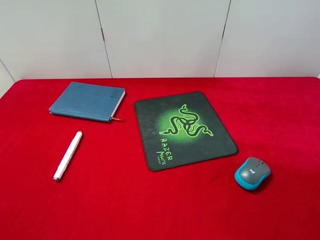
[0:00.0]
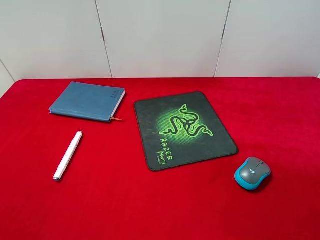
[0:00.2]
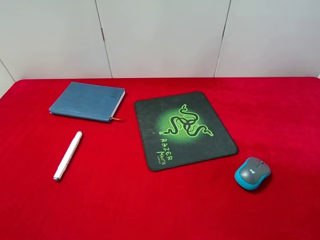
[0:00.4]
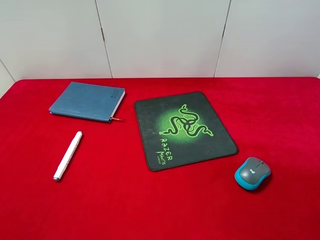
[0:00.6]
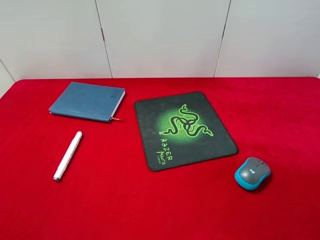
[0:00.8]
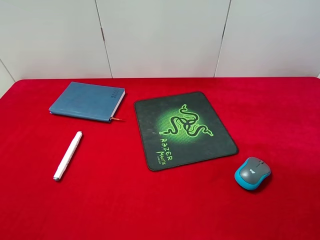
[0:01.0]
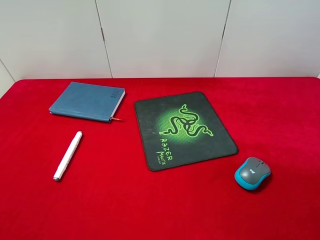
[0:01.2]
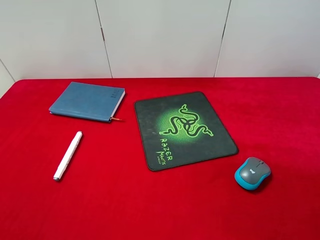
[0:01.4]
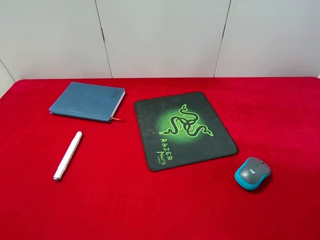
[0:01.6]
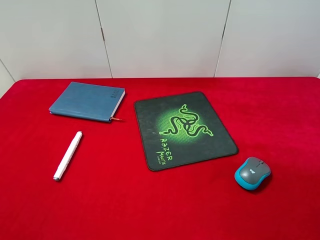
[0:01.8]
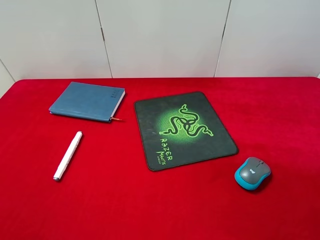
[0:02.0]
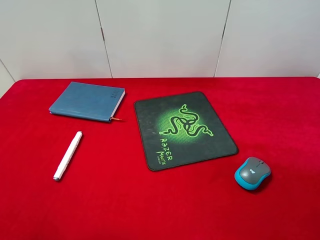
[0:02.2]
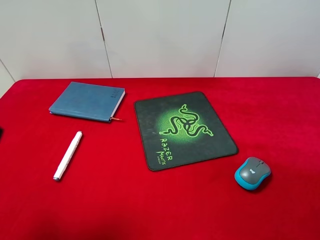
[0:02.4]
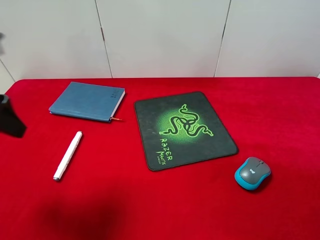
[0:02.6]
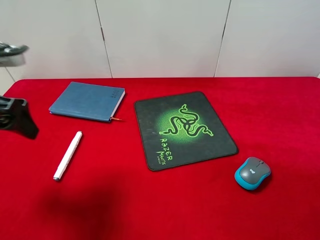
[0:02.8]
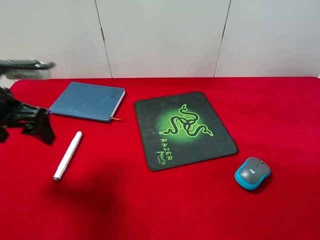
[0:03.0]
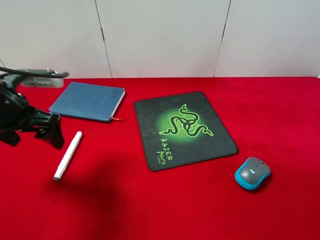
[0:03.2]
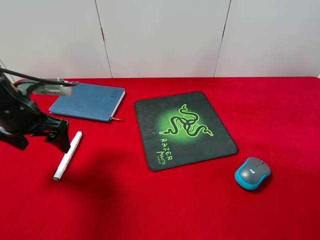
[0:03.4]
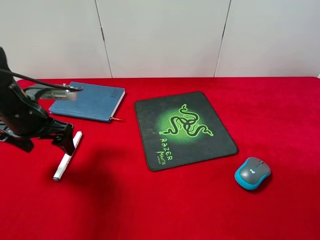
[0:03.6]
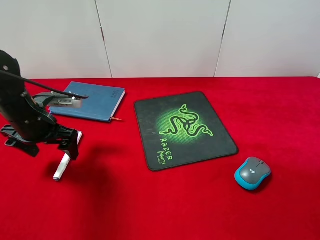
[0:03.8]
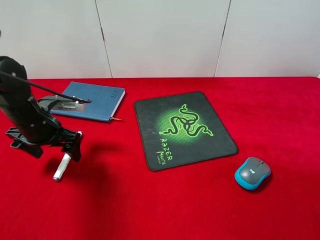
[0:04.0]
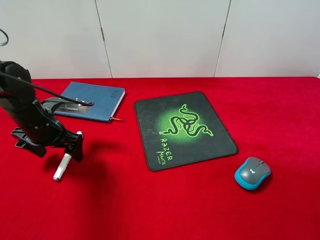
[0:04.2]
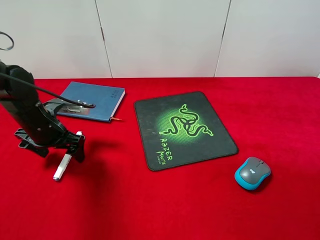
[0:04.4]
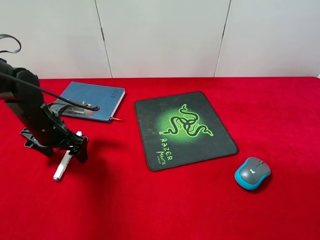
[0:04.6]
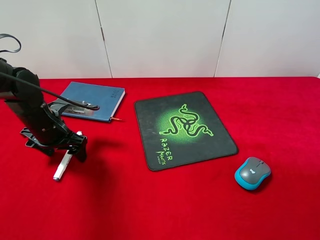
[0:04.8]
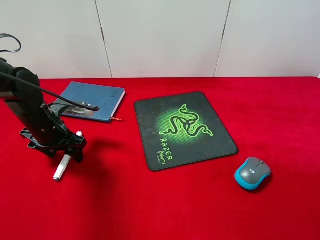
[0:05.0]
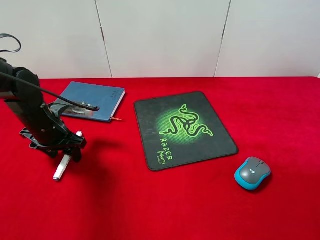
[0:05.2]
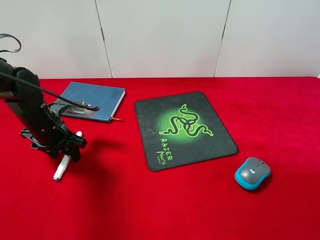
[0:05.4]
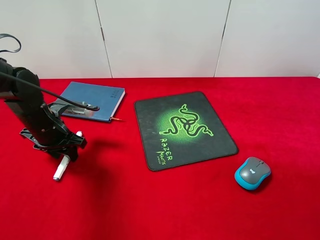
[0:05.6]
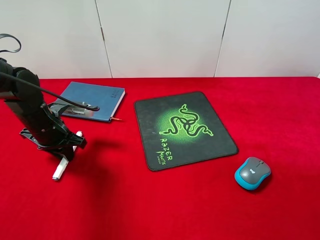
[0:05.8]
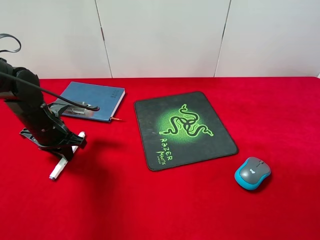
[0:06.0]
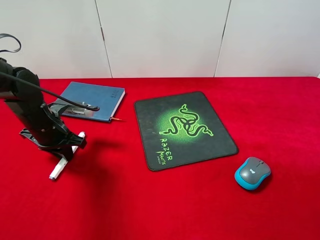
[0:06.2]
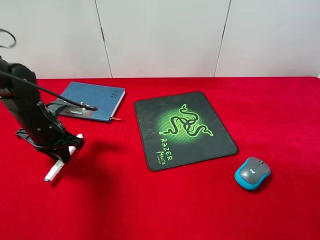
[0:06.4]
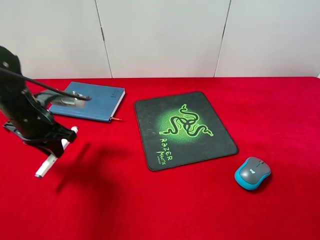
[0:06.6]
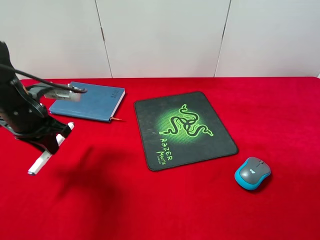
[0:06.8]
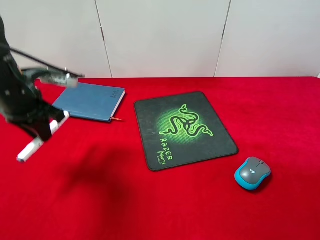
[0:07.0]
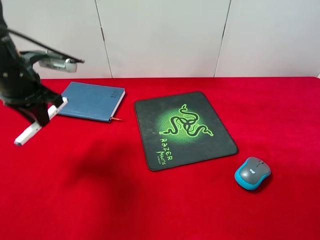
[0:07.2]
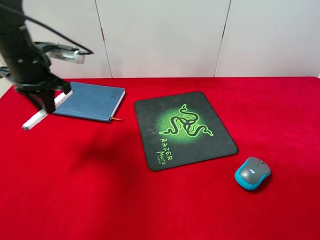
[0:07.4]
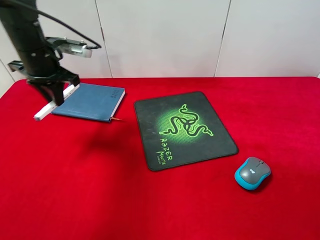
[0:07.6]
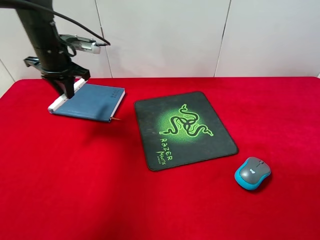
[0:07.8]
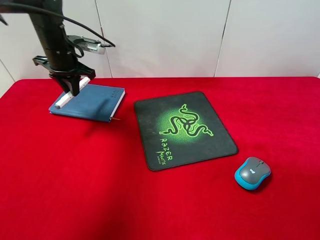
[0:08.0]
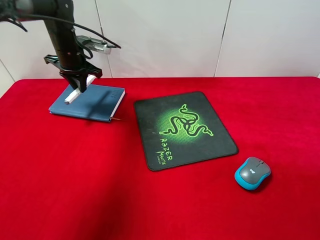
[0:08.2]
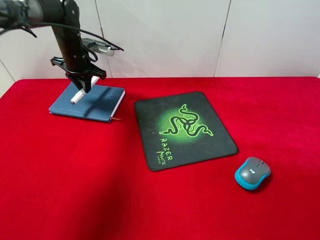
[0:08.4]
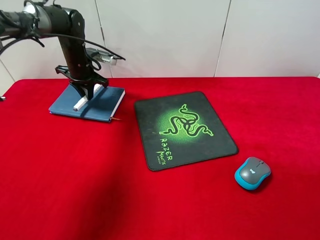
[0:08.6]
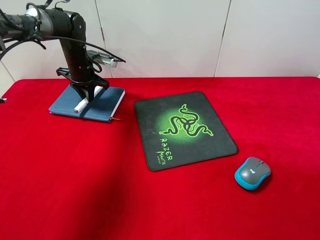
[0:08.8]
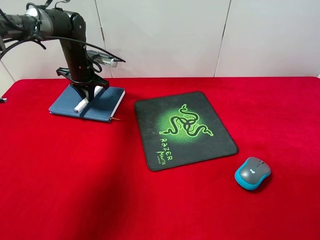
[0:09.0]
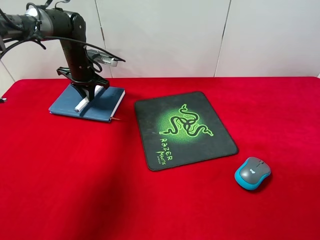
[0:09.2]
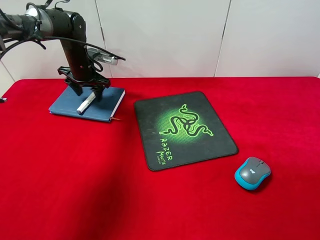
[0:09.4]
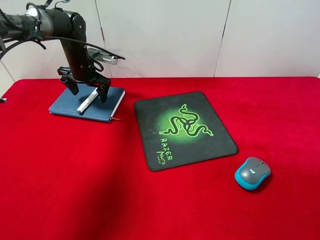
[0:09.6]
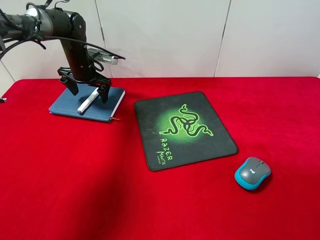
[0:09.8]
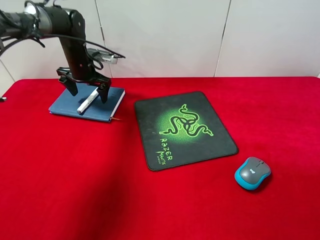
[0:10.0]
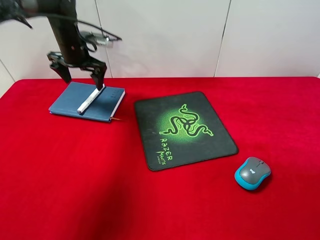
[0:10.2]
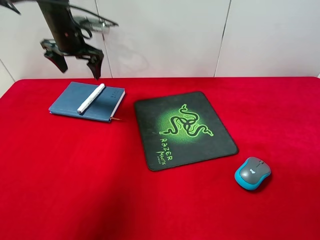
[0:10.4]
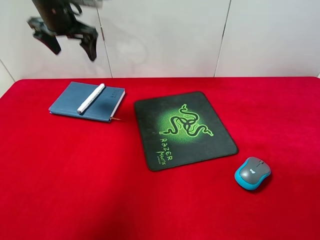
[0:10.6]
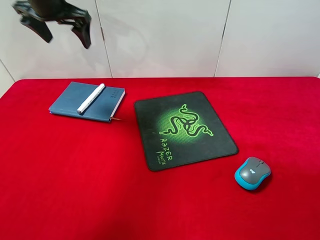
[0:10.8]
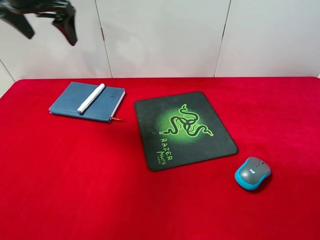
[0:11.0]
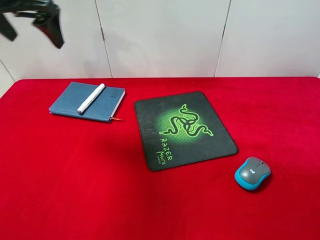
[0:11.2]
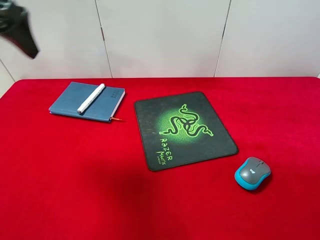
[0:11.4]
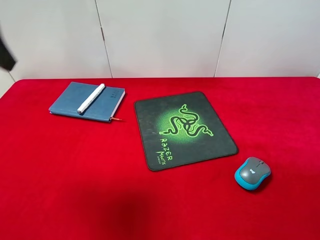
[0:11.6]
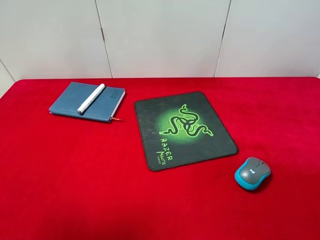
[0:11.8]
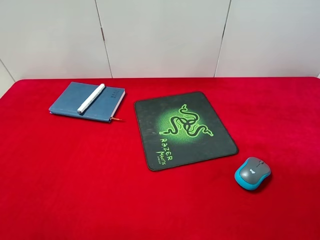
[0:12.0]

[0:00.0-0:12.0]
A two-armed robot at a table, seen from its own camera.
Step, 0:00.0 to 0:06.4: Pick up the marker pen with left gripper.
Step, 0:06.6 to 0:09.6: Place the marker pen on the notebook with left gripper.
0:00.0 to 0:01.6: The two grippers keep their place.
0:01.6 to 0:03.0: The left gripper is displaced forward by roughly 25 cm.
0:03.0 to 0:04.4: The left gripper travels downward and forward by approximately 15 cm.
0:04.4 to 0:06.0: The left gripper closes up.
0:06.0 to 0:07.6: The left gripper travels upward and forward by about 15 cm.
0:07.6 to 0:09.0: The left gripper goes about 15 cm forward and downward.
0:09.0 to 0:10.4: The left gripper goes some 10 cm upward, and opens.
0:10.4 to 0:12.0: The left gripper goes about 40 cm backward.

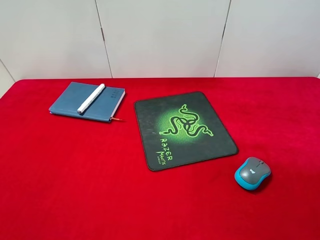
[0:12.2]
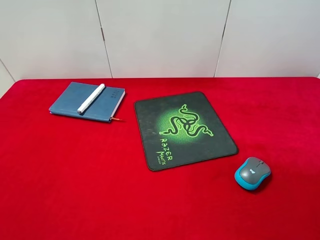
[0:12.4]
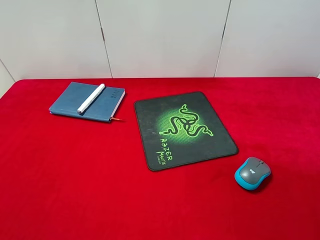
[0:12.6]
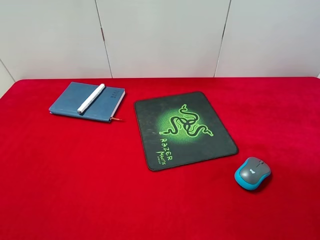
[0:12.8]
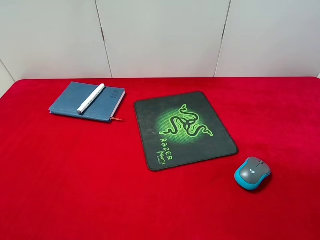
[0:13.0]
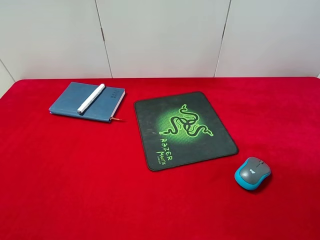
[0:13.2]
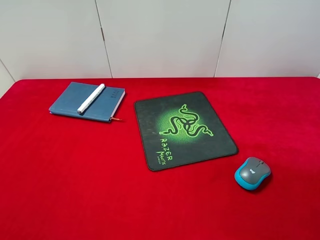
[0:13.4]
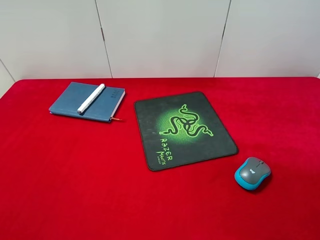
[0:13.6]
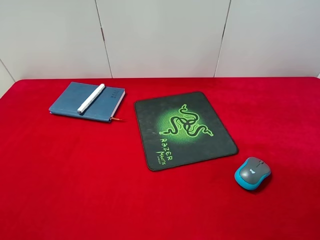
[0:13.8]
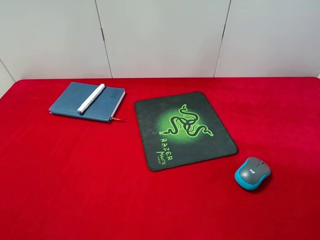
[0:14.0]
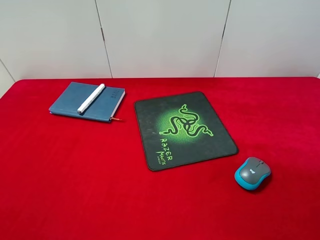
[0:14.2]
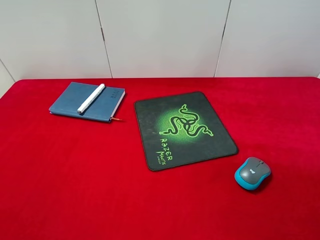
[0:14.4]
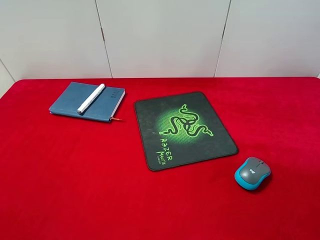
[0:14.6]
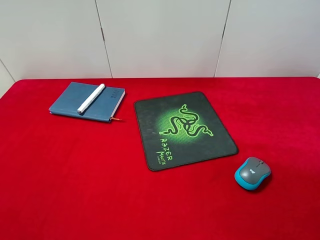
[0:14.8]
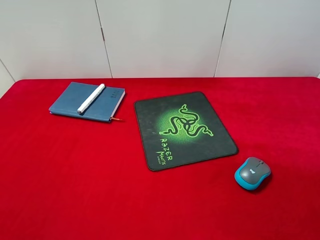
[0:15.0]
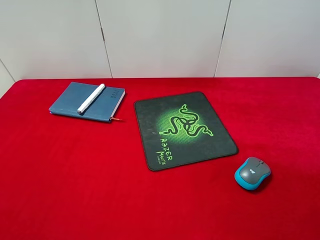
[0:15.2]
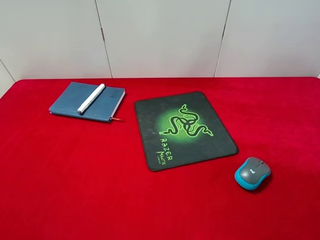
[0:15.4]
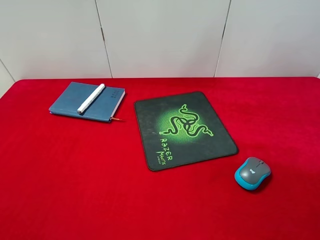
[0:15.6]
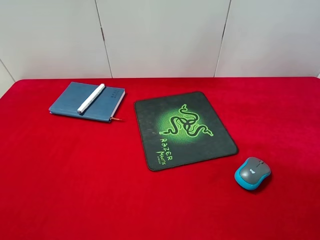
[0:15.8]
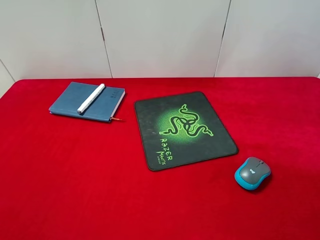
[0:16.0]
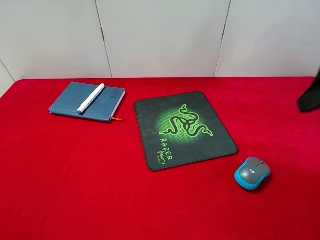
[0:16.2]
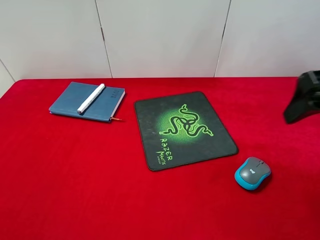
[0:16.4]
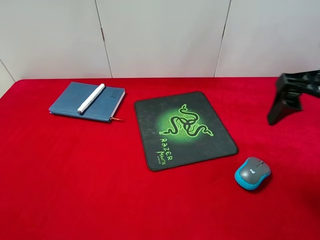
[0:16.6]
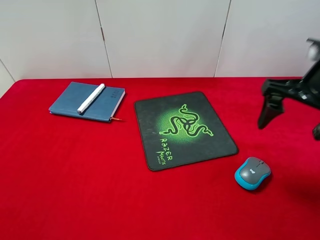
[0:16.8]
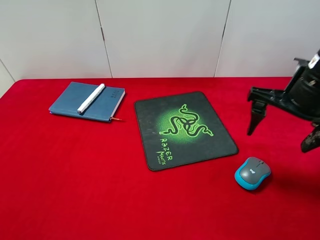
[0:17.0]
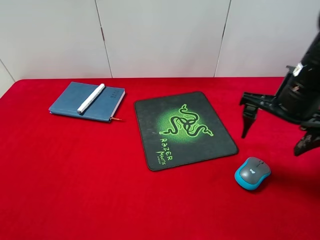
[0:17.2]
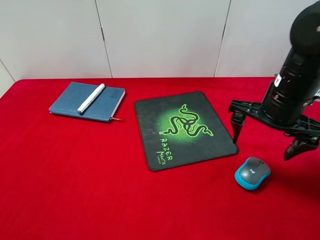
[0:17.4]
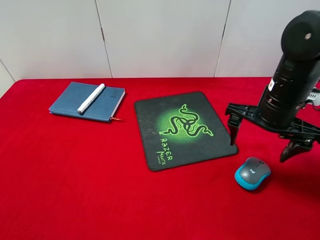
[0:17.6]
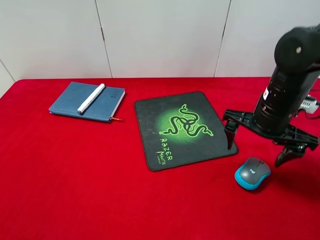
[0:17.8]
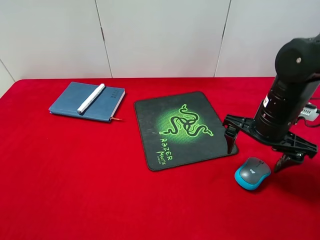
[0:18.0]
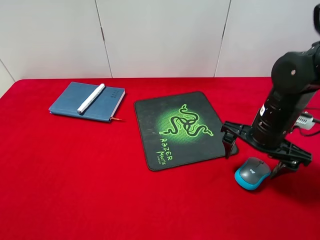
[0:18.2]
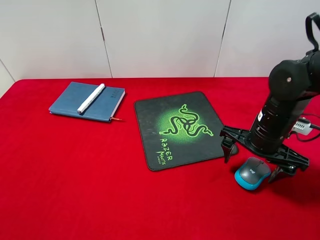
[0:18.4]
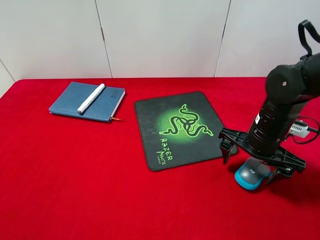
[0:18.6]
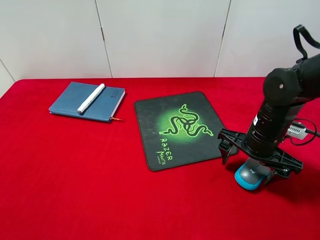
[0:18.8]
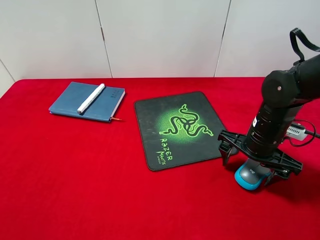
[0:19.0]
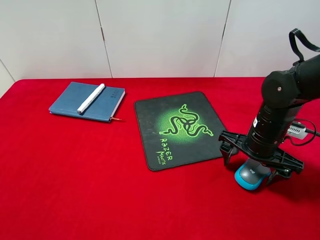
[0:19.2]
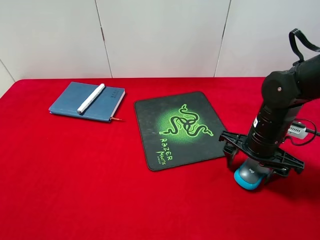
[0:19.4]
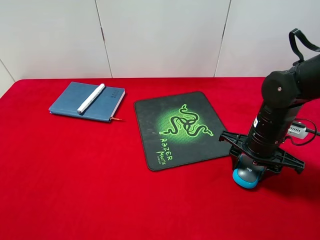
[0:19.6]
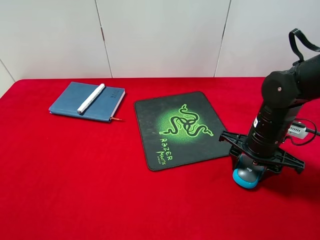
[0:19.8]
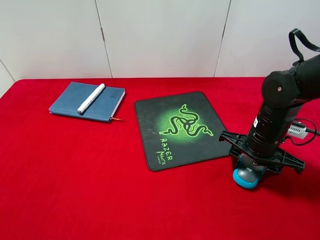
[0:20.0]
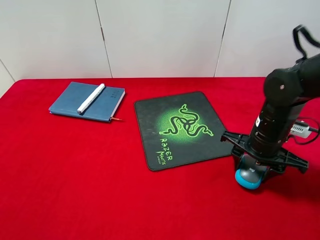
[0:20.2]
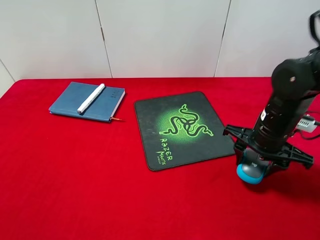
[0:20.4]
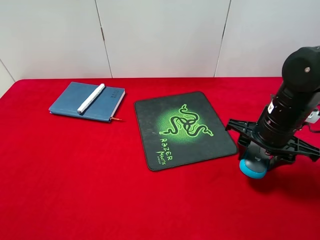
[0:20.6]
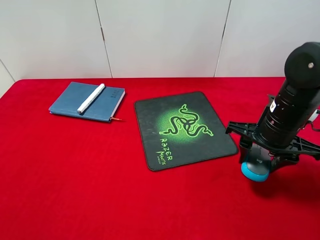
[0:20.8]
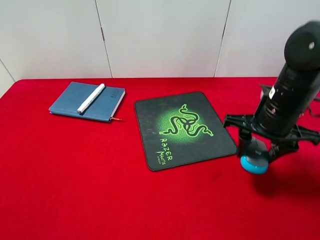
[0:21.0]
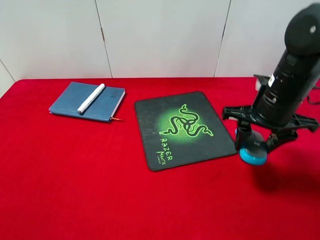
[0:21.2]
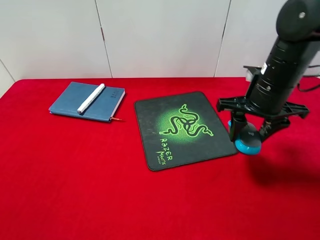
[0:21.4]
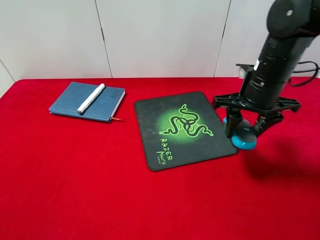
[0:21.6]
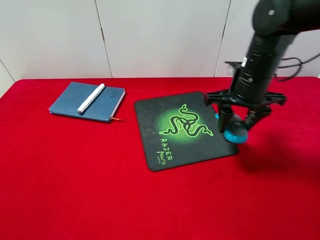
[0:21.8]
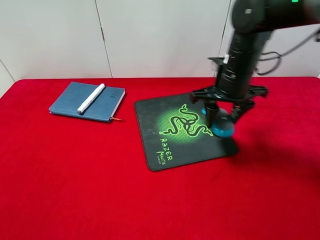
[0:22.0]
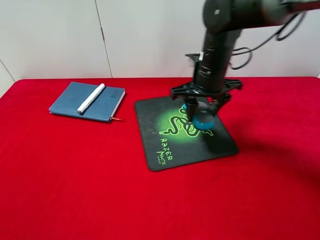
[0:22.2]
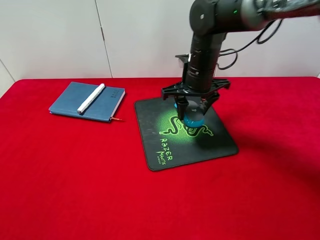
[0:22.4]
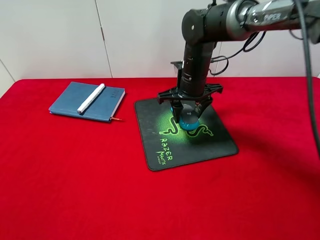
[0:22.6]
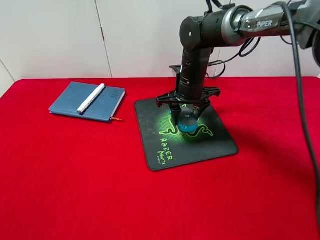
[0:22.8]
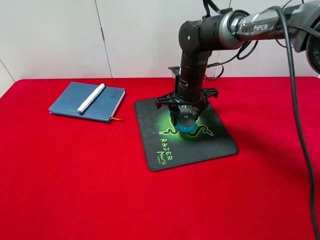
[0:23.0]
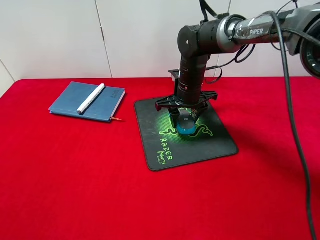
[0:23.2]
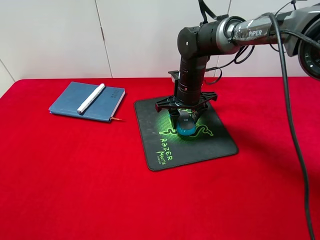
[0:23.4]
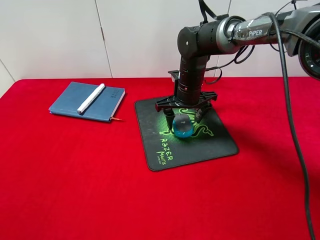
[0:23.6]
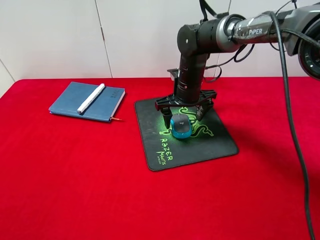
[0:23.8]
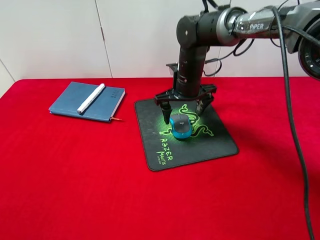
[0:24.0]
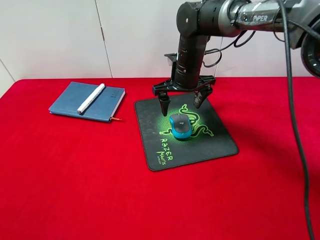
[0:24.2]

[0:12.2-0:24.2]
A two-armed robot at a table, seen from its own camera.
Step, 0:12.2 to 0:20.2: Pick up the mouse with right gripper.
Step, 0:20.4 to 0:24.0: Place the mouse on the mouse pad with right gripper.
0:15.2 to 0:16.6: The right gripper moves forward, approximately 20 cm.
0:16.6 to 0:18.2: The right gripper shifts about 15 cm downward.
0:18.2 to 0:19.8: The right gripper closes its fingers.
0:19.8 to 0:21.2: The right gripper shifts roughly 10 cm upward.
0:21.2 to 0:22.6: The right gripper moves to the left and forward, about 20 cm.
0:22.6 to 0:24.2: The right gripper opens its fingers.
